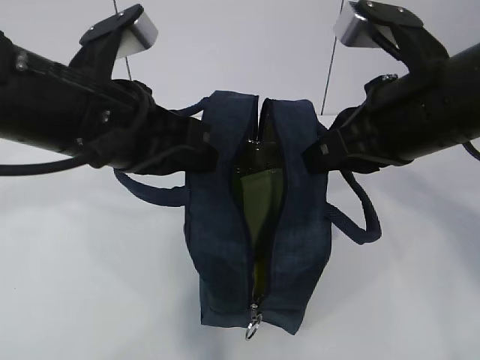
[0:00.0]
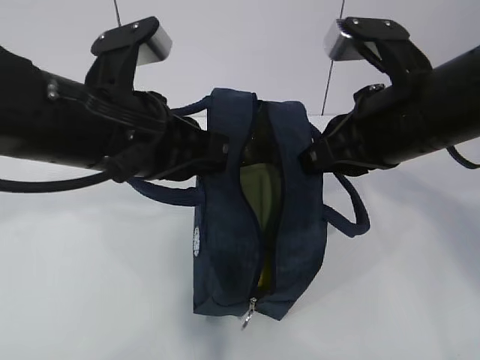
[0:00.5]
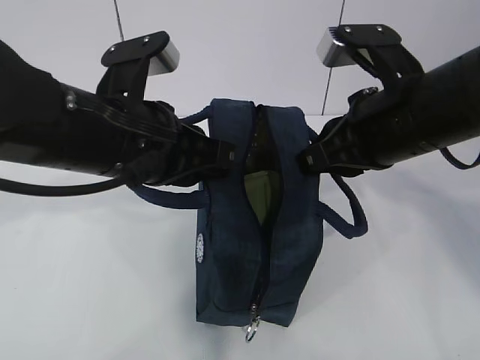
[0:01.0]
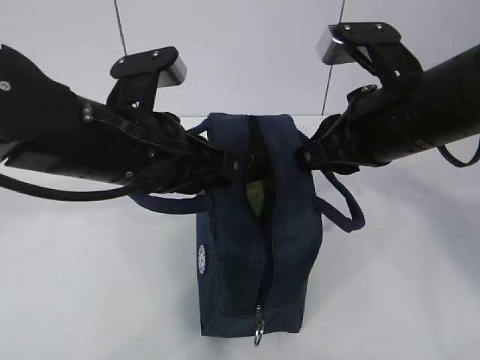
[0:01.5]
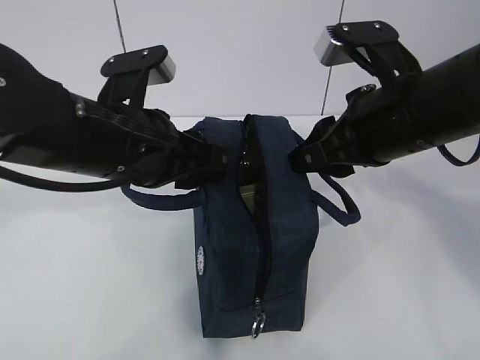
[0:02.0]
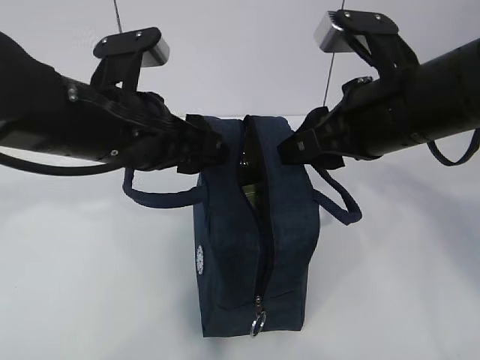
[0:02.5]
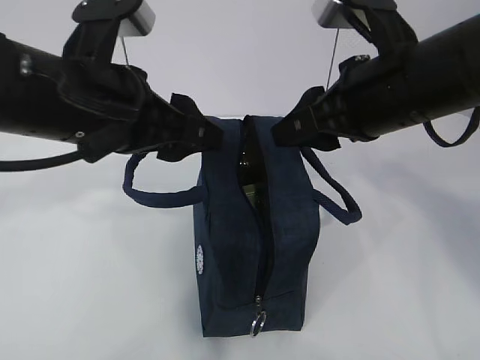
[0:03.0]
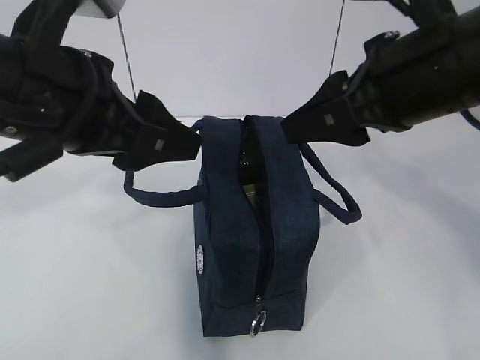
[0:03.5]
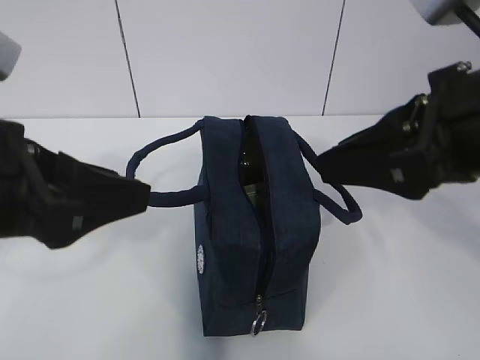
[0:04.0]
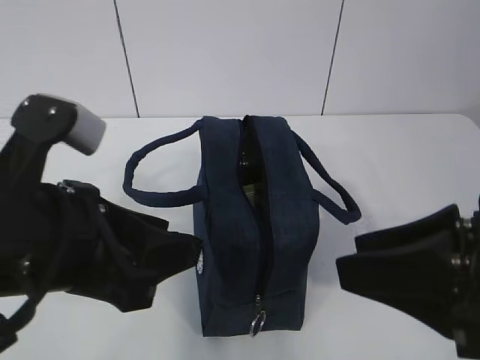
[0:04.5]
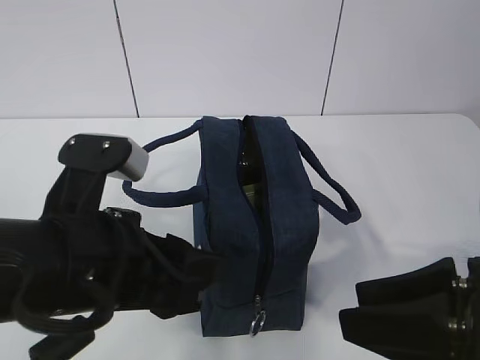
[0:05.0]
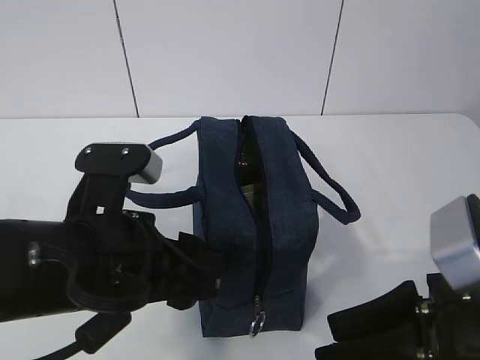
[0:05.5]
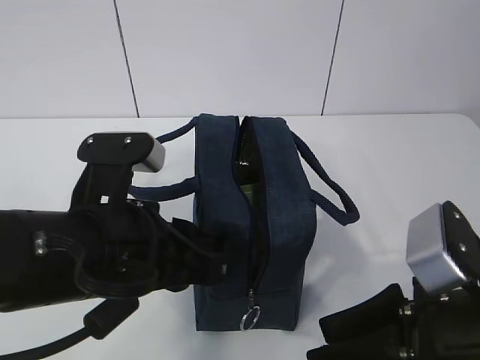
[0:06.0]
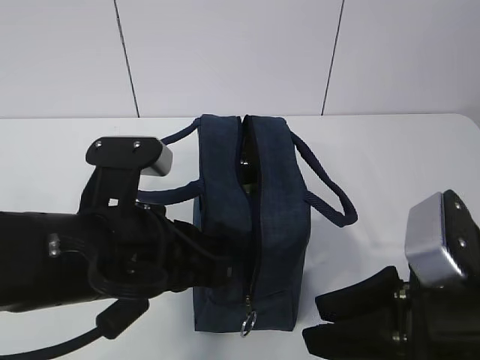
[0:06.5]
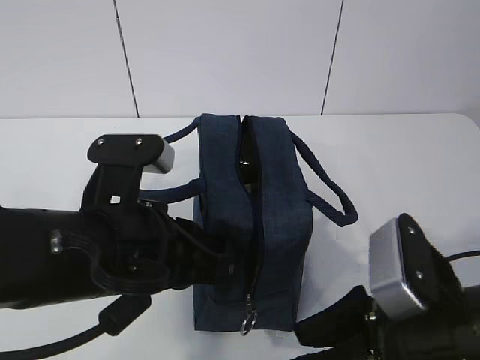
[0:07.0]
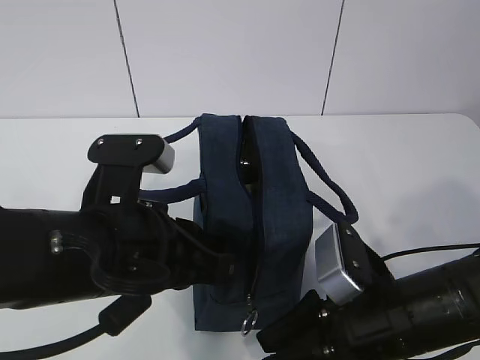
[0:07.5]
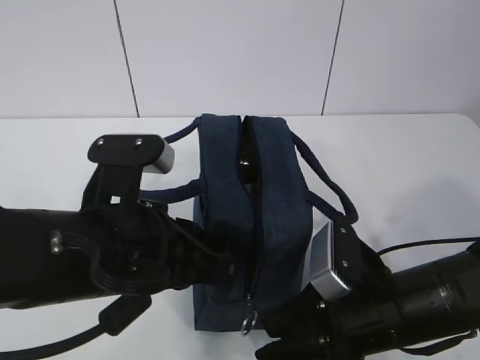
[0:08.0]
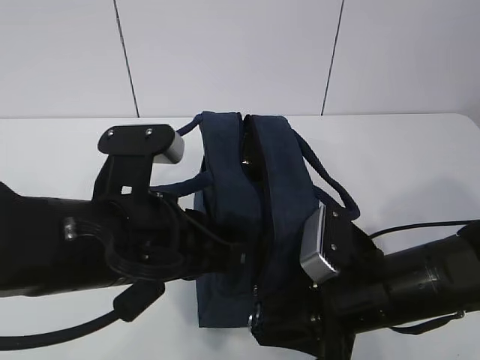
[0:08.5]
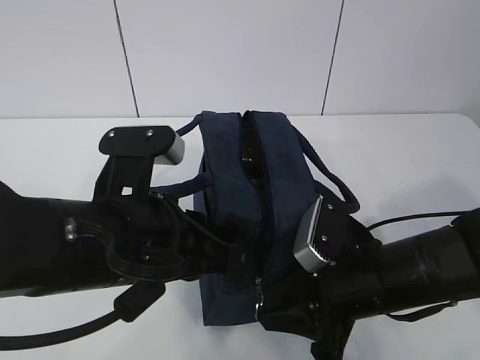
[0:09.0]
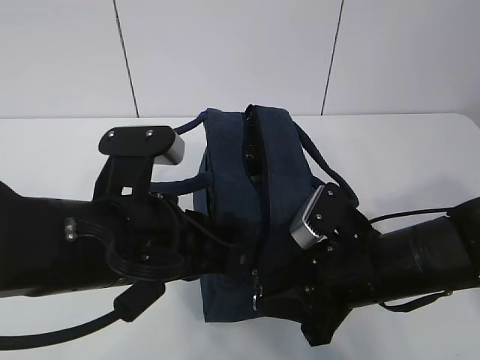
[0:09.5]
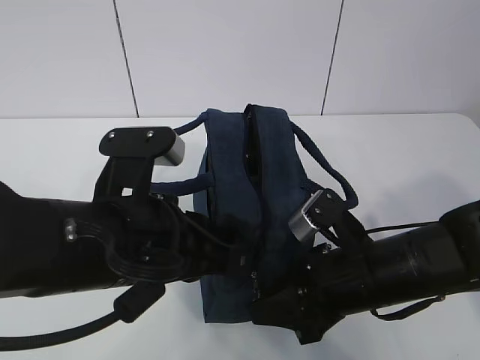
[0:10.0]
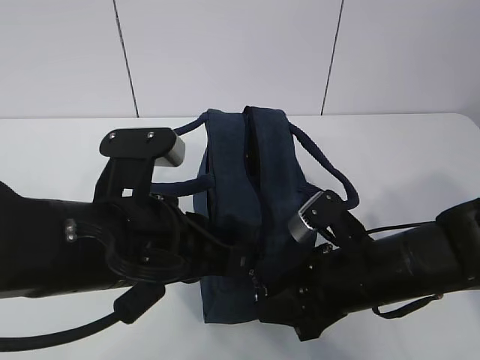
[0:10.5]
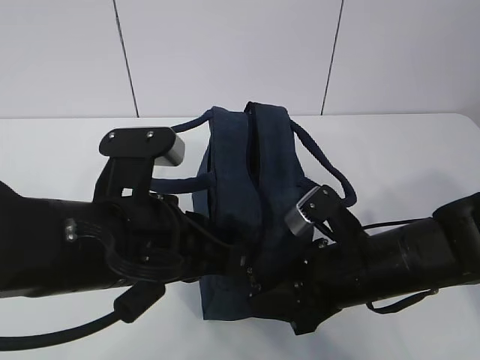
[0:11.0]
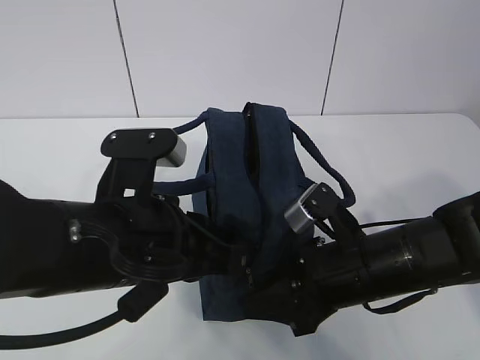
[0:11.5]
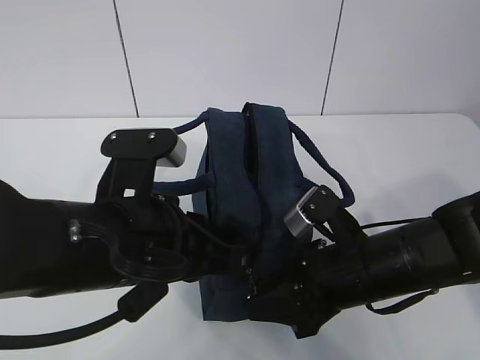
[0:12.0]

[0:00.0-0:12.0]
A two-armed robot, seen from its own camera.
0:00.0 to 0:02.0: The right gripper opens; the left gripper opens up.
0:02.0 to 0:04.0: The right gripper travels backward and upward by approximately 10 cm, while the left gripper moves backward and to the left, roughly 10 cm.
0:04.0 to 0:06.0: The right gripper goes approximately 15 cm downward and backward. The left gripper moves downward and to the right, approximately 10 cm, and closes its fingers.
0:06.0 to 0:08.0: The right gripper moves downward and forward, approximately 10 cm.
0:08.0 to 0:12.0: There are only small adjustments of the grippers.

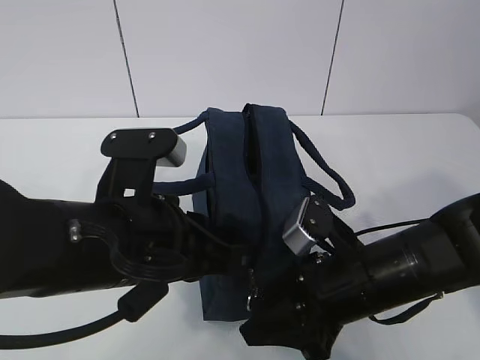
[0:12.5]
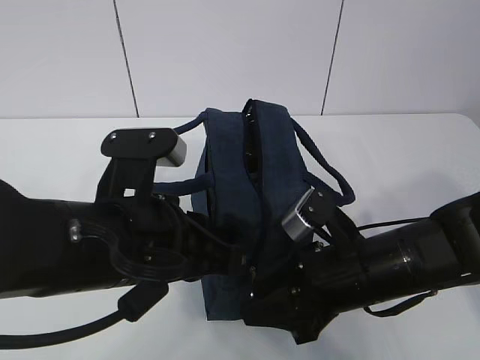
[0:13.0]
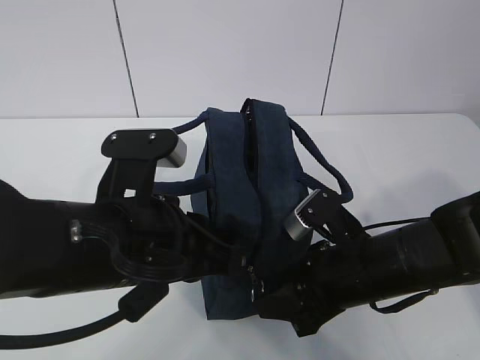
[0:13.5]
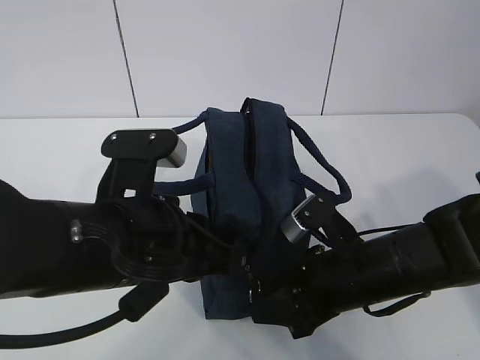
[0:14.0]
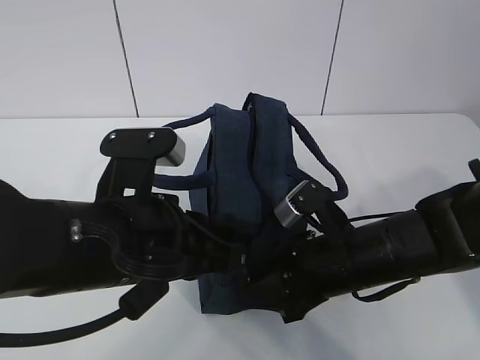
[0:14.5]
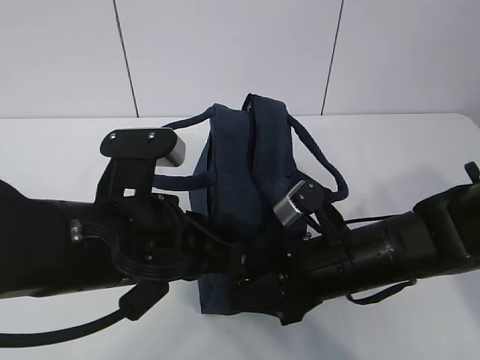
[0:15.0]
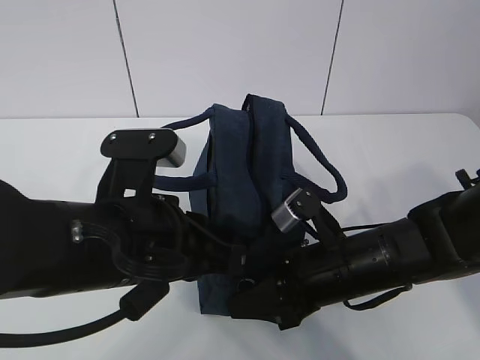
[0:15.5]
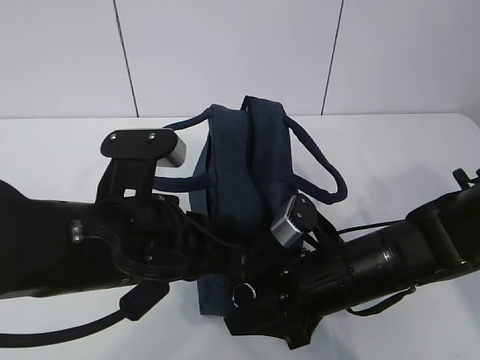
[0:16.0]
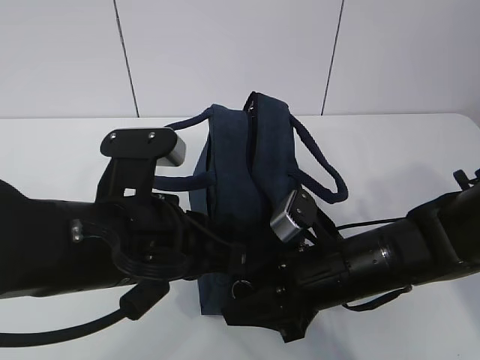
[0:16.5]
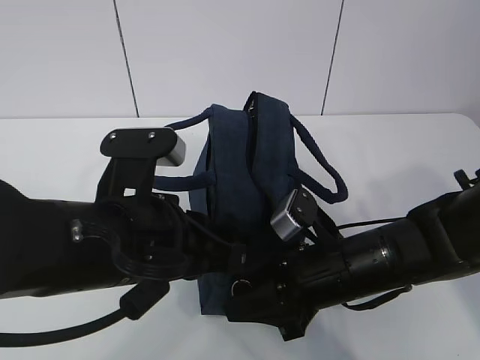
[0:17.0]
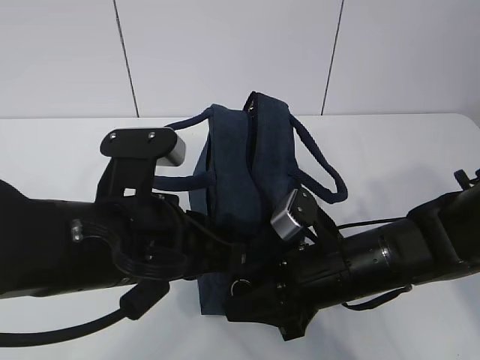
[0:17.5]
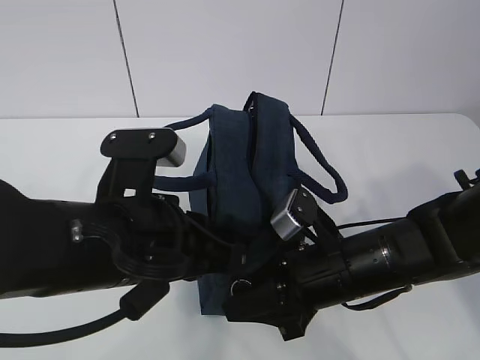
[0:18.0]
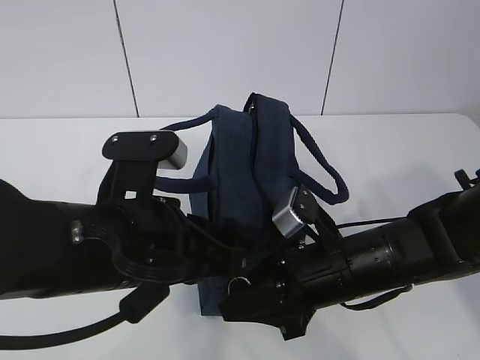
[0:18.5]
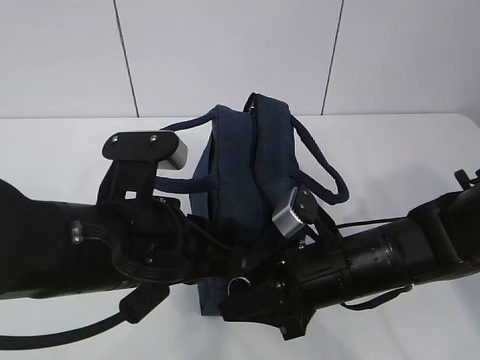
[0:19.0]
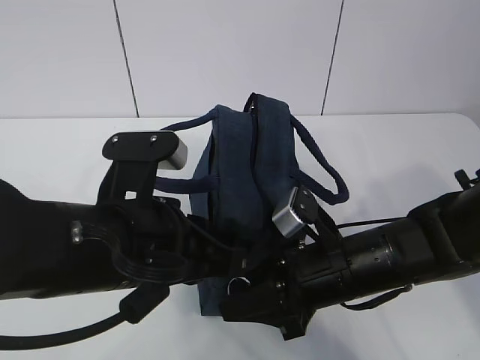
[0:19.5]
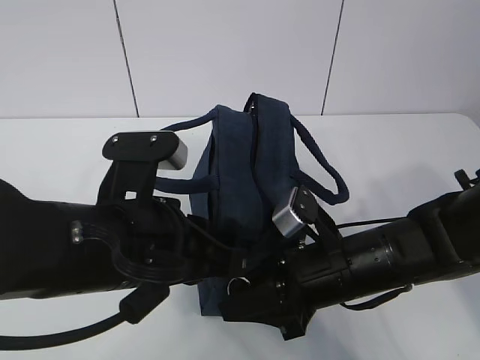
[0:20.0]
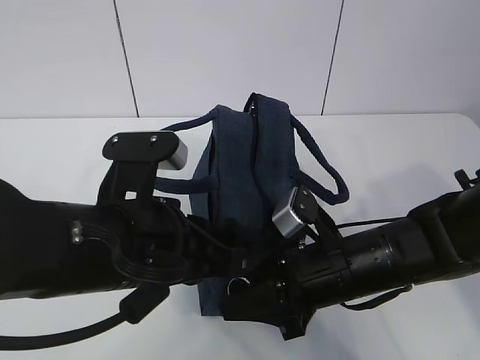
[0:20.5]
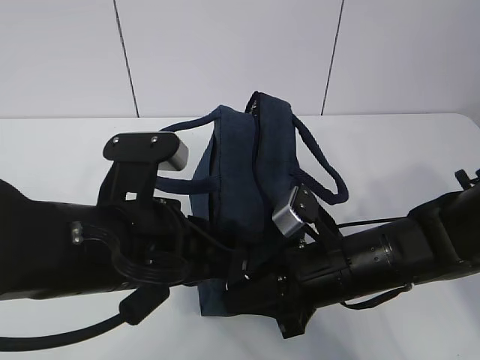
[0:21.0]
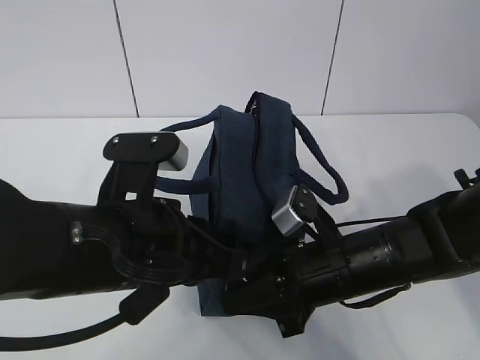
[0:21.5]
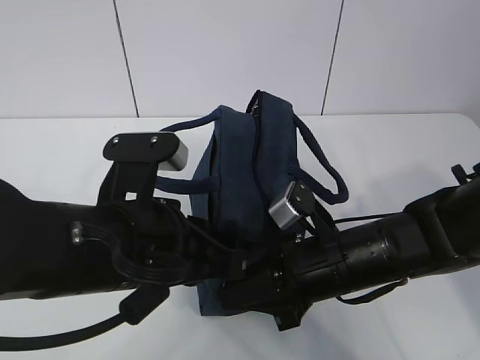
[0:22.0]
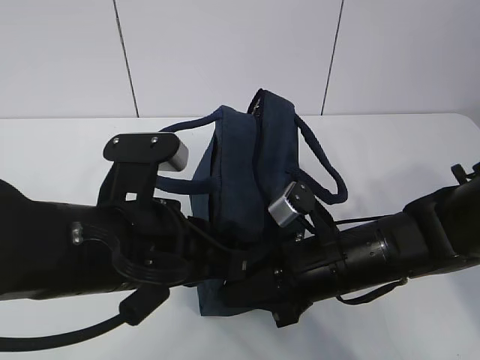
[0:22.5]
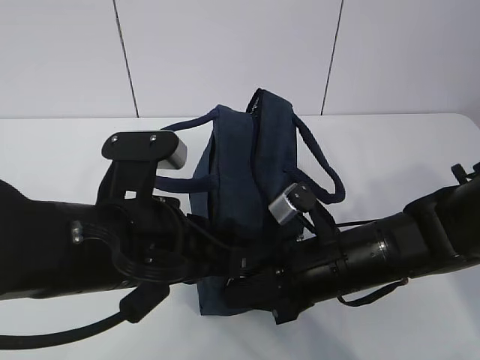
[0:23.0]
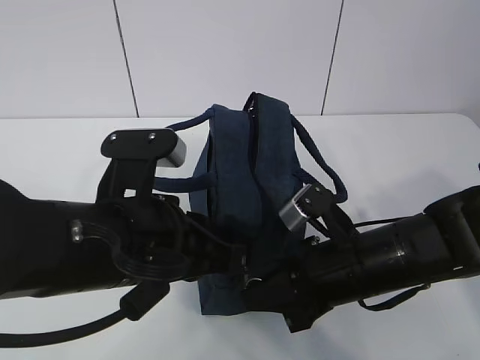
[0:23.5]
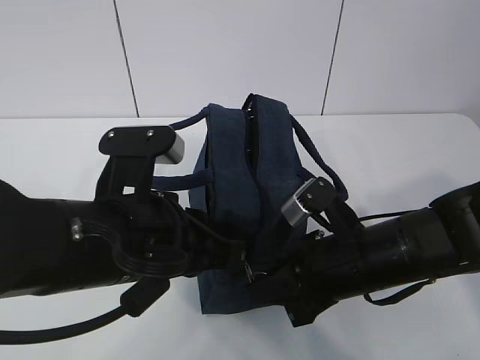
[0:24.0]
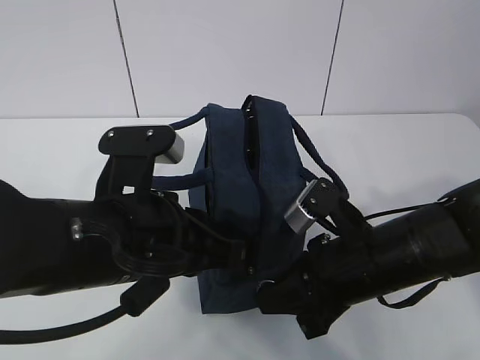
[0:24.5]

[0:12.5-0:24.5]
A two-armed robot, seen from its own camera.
0:12.5 to 0:16.5: The grippers move only a little.
0:16.5 to 0:20.5: Both grippers stay about where they are.
0:20.5 to 0:22.5: The right gripper closes its fingers.
0:22.5 to 0:24.5: The grippers move only a little.

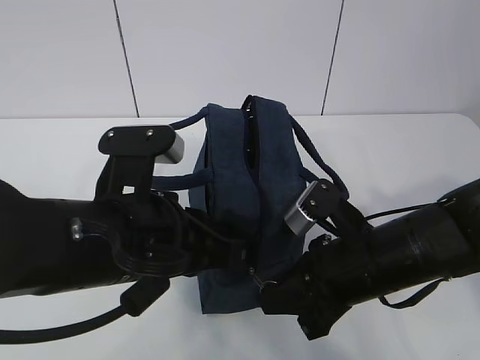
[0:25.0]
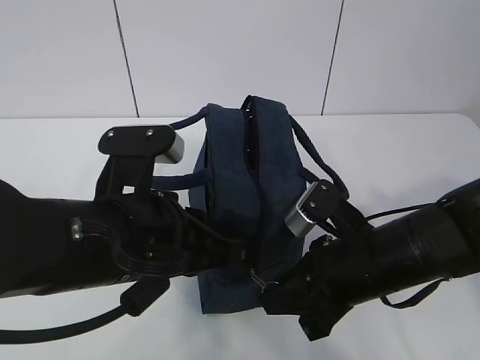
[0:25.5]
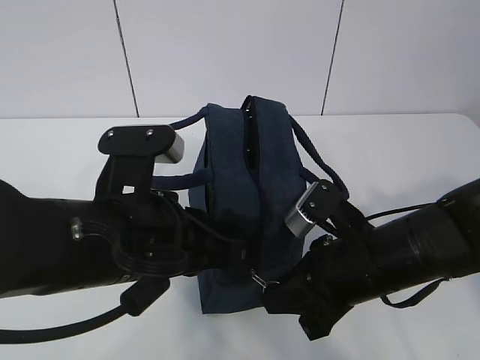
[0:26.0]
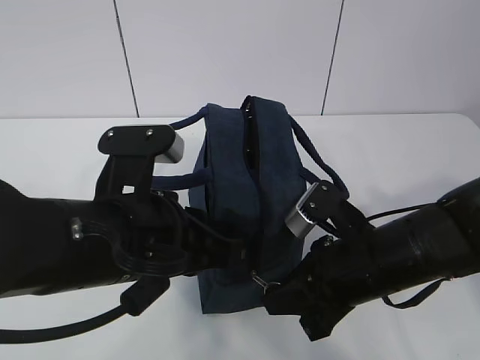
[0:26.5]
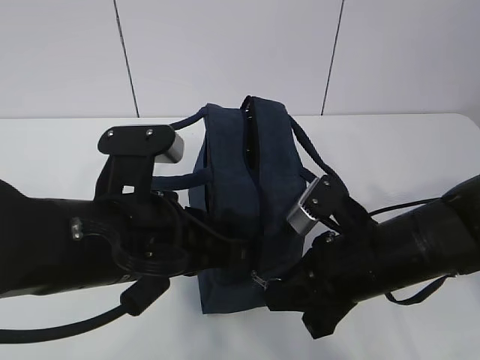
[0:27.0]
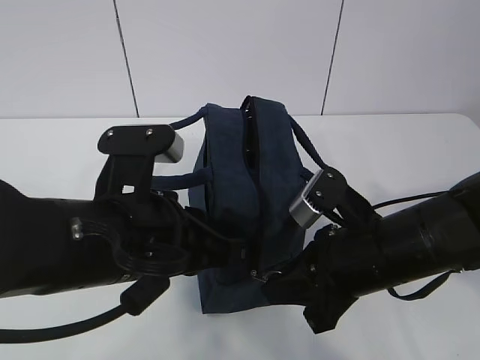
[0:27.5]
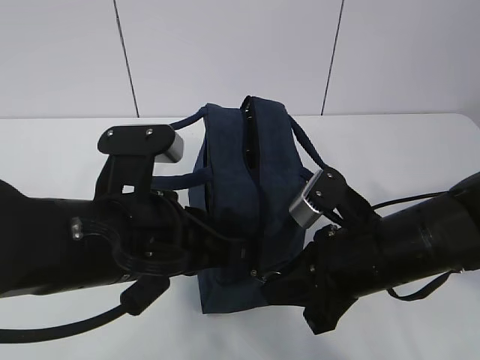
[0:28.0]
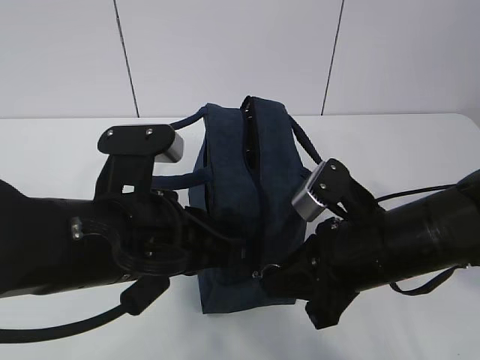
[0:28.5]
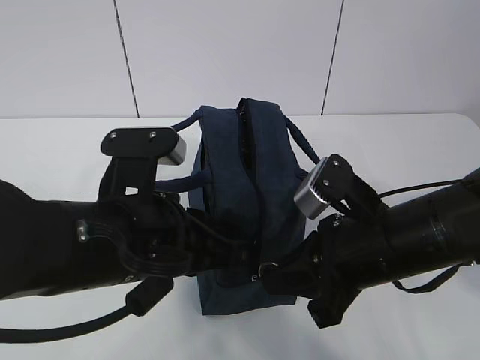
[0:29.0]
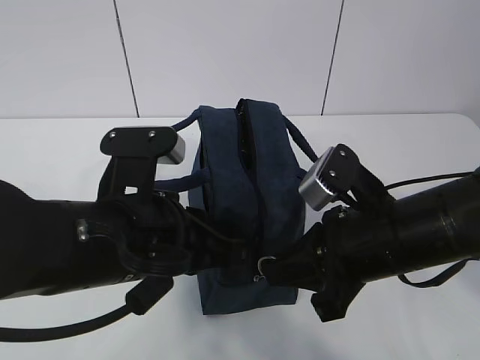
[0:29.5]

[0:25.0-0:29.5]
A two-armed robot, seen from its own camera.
Step, 0:25.0 to 0:27.5: Pull the zipper with your right hand.
0:25.0 to 0:27.0: The two grippers keep their place.
0:27.0 to 0:29.5: The grippers stay close to where they were, moving slightly.
